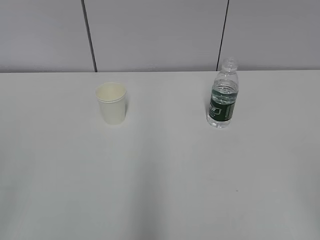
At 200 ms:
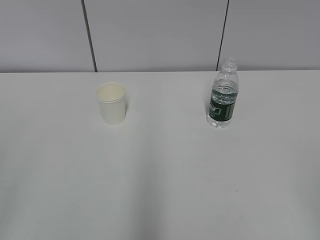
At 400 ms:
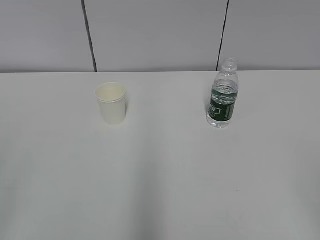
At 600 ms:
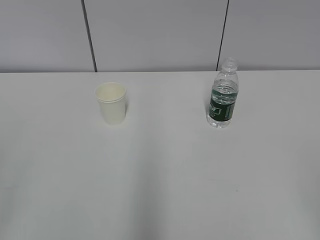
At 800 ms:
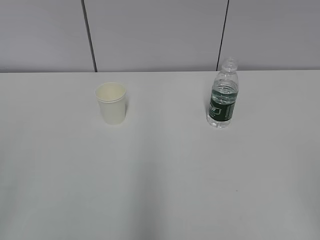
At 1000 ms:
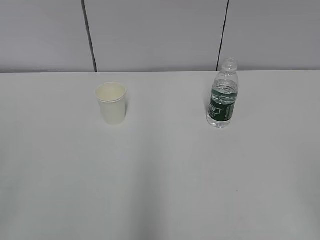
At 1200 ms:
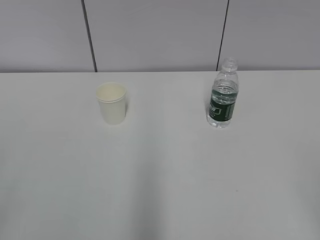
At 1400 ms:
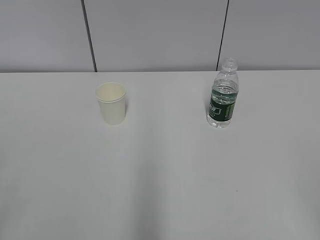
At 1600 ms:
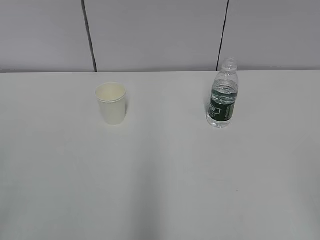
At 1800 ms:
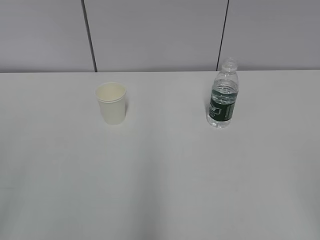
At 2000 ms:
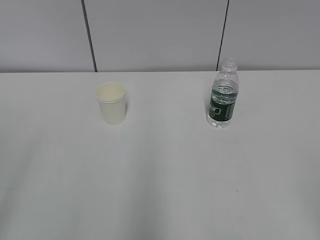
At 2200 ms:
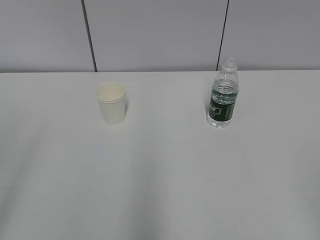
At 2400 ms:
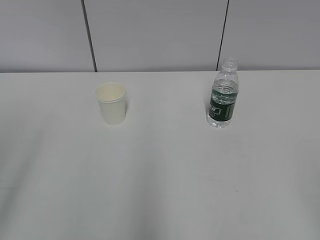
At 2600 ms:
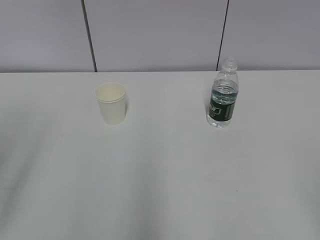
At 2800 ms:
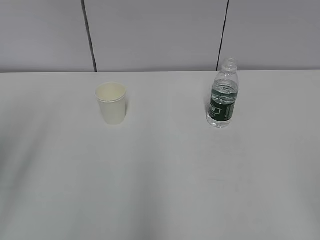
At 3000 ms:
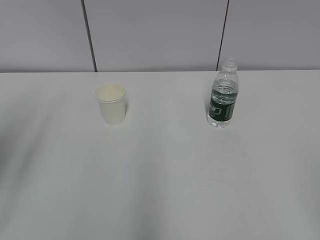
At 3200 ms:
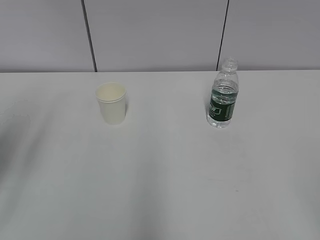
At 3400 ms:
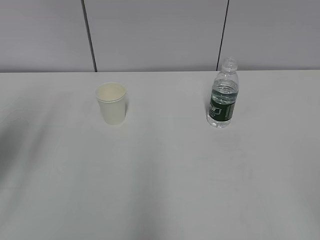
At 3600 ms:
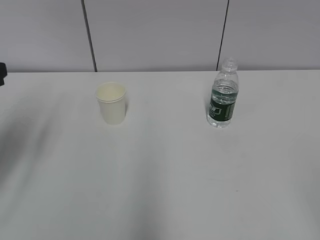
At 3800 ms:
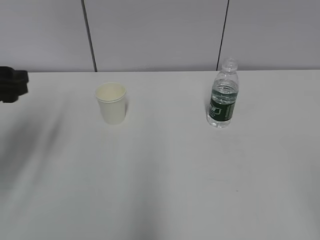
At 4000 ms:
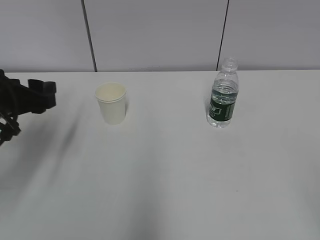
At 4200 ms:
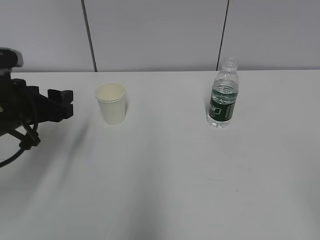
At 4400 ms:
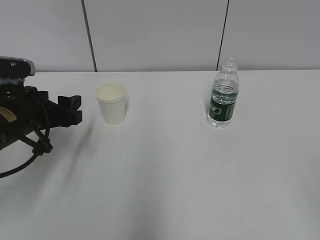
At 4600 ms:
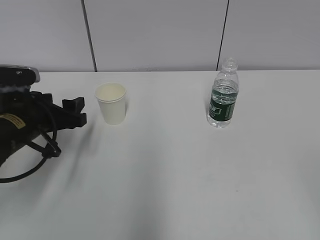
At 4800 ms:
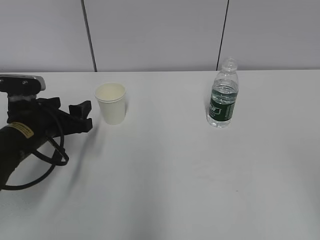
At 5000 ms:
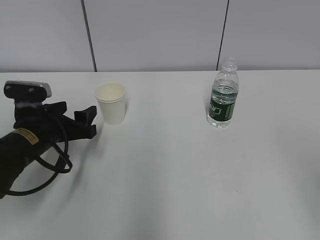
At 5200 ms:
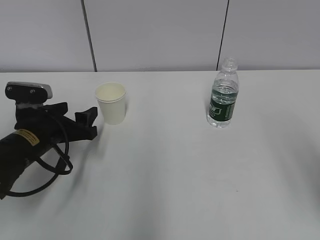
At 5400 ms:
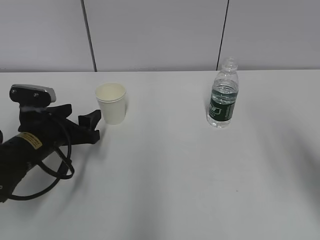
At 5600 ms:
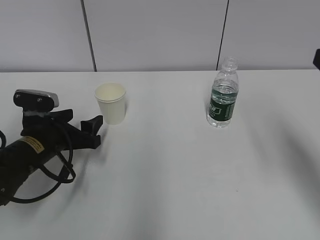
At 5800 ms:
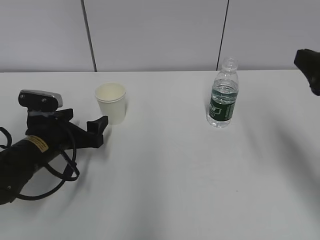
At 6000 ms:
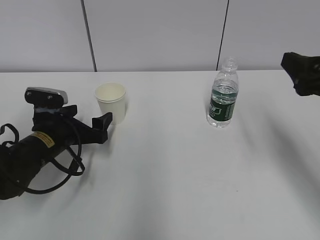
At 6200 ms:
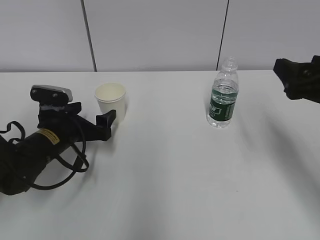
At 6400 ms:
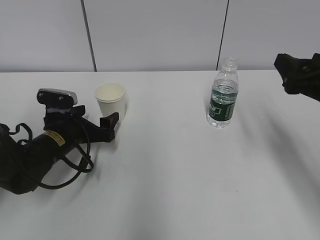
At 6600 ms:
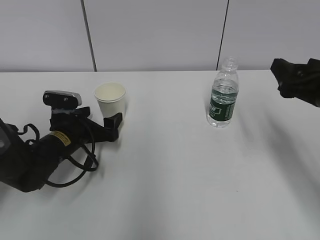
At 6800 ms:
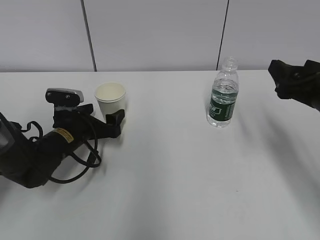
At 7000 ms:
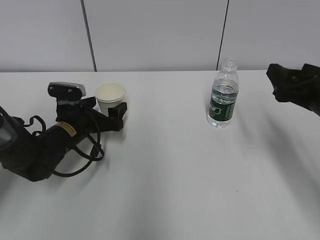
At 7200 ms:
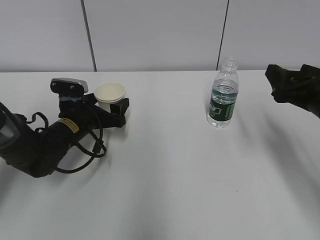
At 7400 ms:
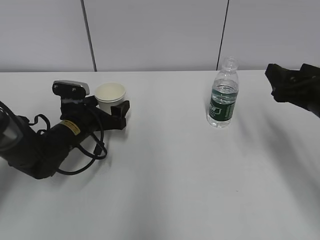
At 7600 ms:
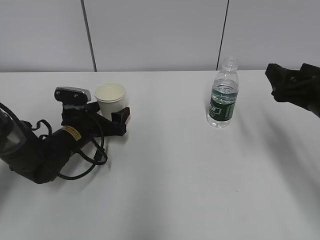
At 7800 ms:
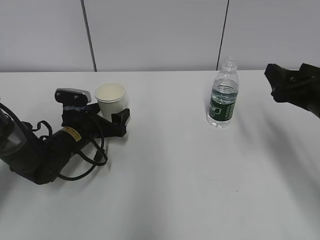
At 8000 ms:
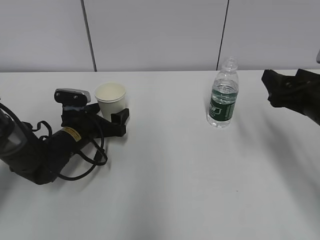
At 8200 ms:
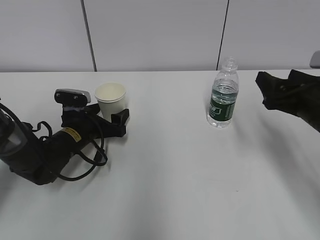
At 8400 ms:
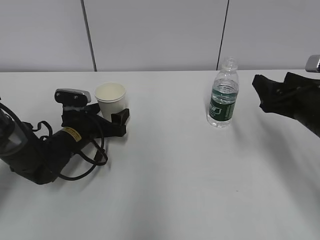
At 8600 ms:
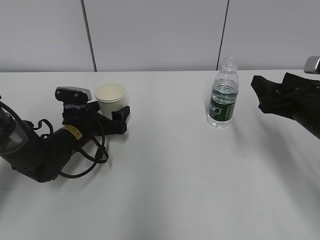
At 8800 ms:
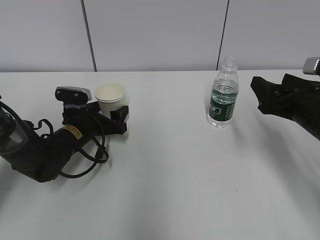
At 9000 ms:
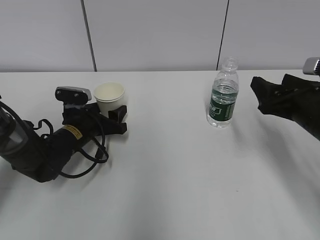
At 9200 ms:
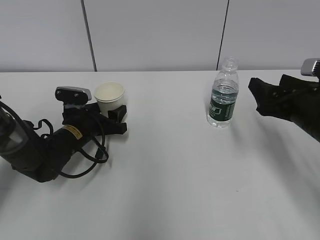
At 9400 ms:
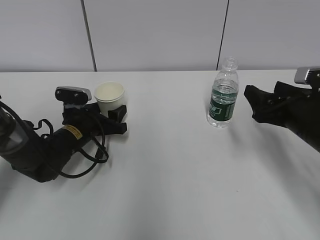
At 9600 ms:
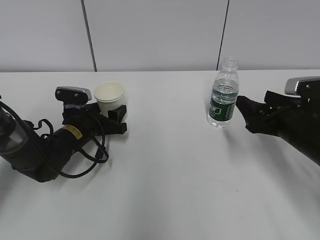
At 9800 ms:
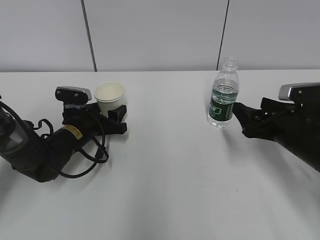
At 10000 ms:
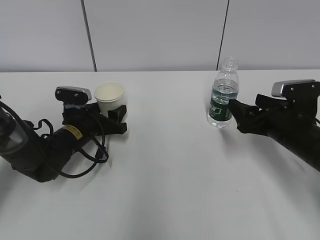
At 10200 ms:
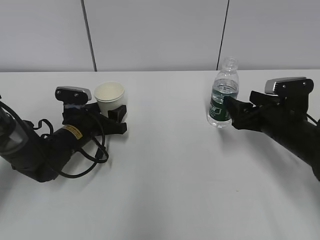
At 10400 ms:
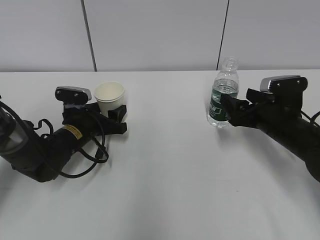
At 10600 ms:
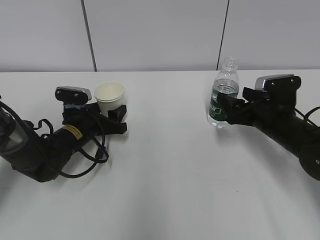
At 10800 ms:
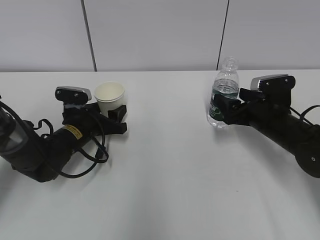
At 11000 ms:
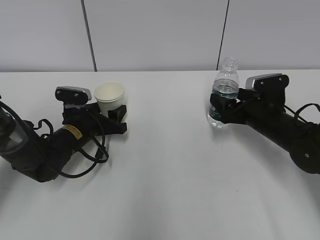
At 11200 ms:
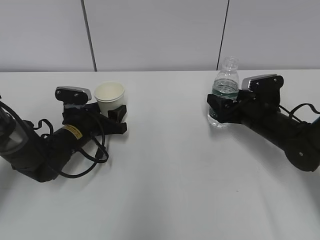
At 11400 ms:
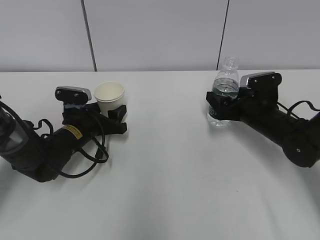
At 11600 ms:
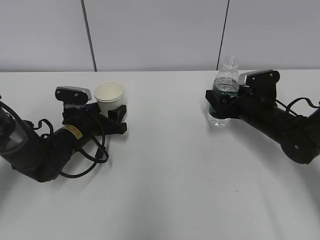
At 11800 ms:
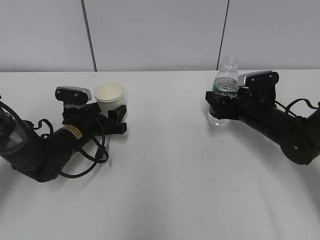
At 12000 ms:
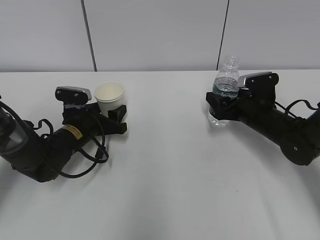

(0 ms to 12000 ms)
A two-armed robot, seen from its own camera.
Step, 0 ms - 10000 ms: Grab the paper cup with the left hand.
Step, 10200 ms - 10400 ms: Grab the water bottle with the right hand.
1600 ms - 3000 ms: The left gripper goes roughly 15 cm forward.
3000 ms - 4400 ms: The left gripper travels downward, forward and to the right by approximately 20 cm.
4400 ms - 6000 ms: The left gripper goes some 10 cm downward, and opens up; the right gripper travels forward by roughly 25 cm.
6000 ms - 7600 ms: The right gripper moves downward, some 5 cm; the left gripper shifts roughly 5 cm forward.
7600 ms - 9000 ms: The left gripper closes.
9000 ms - 10400 ms: The right gripper travels downward and forward by roughly 10 cm.
10400 ms - 12000 ms: The right gripper shifts roughly 5 cm forward.

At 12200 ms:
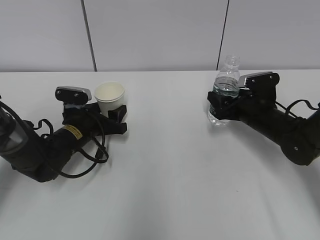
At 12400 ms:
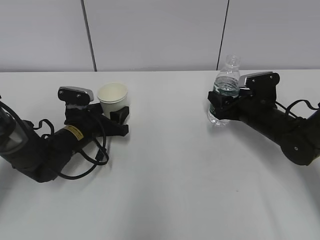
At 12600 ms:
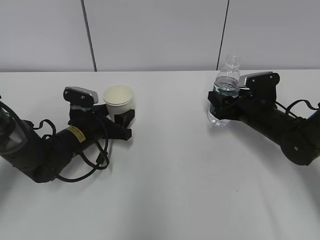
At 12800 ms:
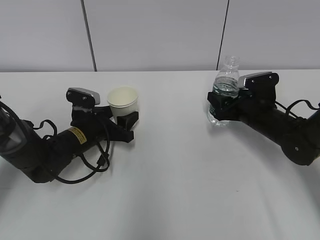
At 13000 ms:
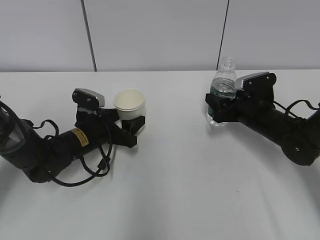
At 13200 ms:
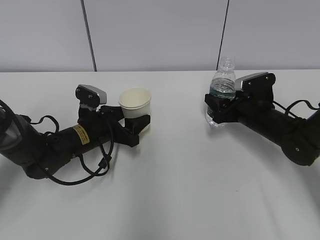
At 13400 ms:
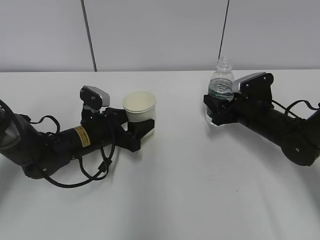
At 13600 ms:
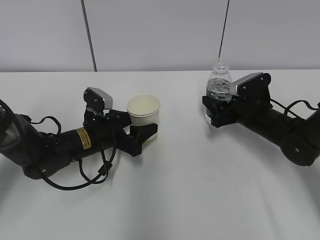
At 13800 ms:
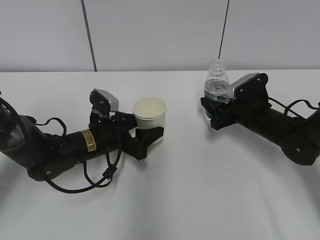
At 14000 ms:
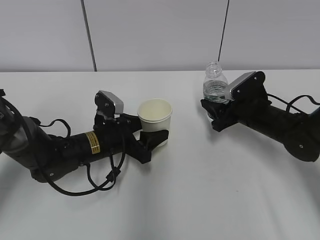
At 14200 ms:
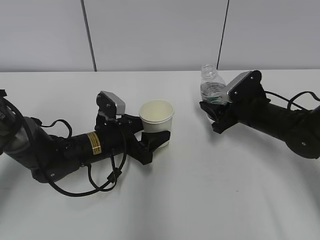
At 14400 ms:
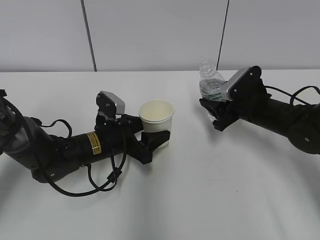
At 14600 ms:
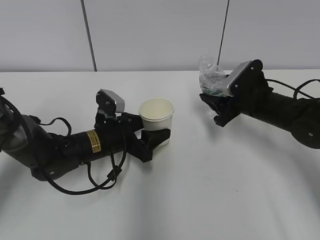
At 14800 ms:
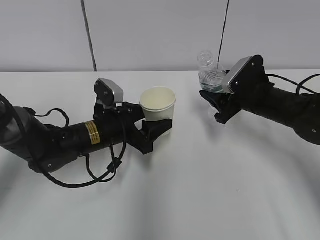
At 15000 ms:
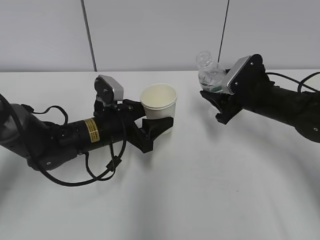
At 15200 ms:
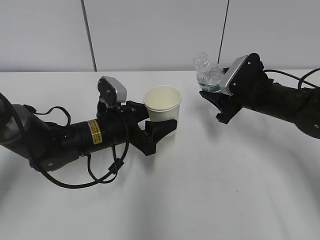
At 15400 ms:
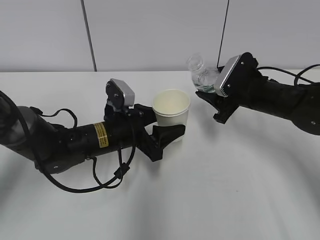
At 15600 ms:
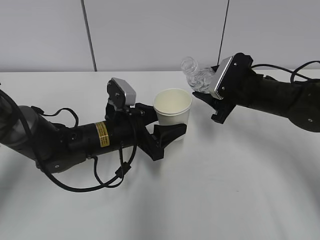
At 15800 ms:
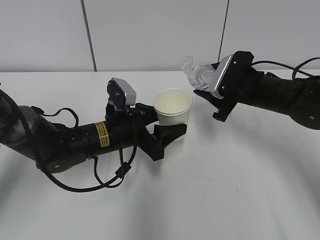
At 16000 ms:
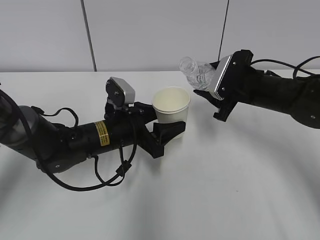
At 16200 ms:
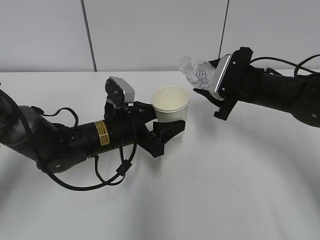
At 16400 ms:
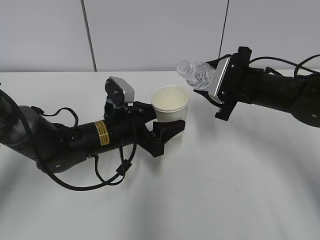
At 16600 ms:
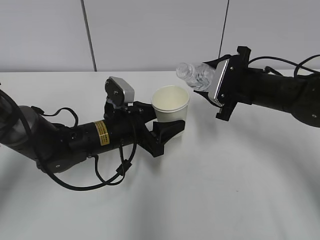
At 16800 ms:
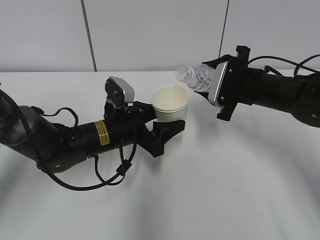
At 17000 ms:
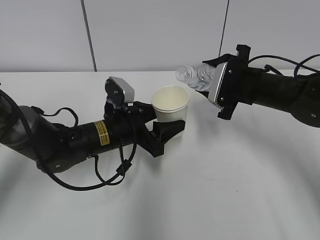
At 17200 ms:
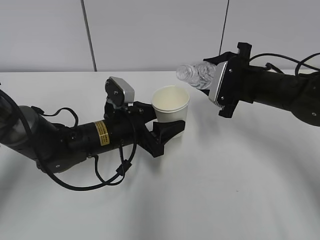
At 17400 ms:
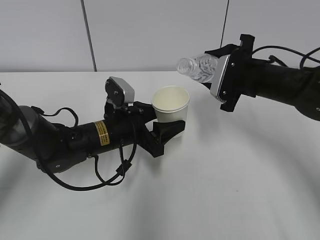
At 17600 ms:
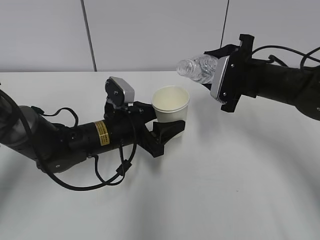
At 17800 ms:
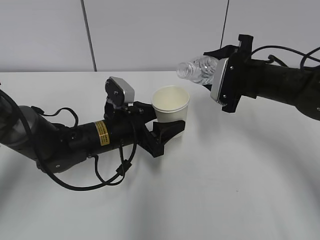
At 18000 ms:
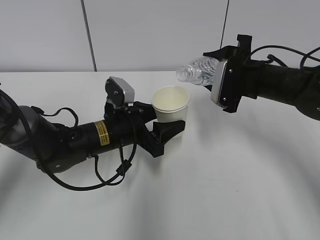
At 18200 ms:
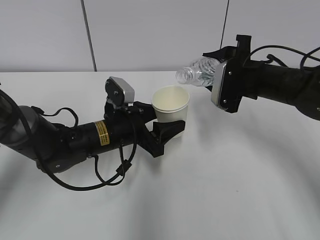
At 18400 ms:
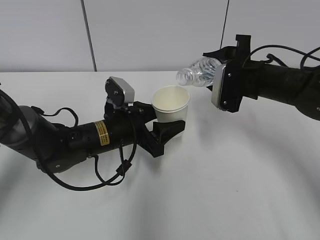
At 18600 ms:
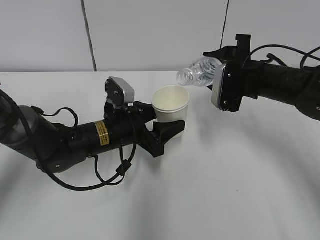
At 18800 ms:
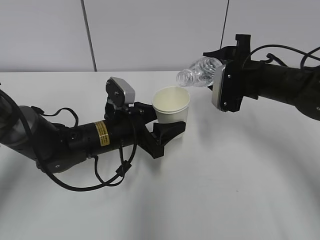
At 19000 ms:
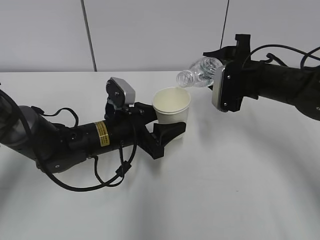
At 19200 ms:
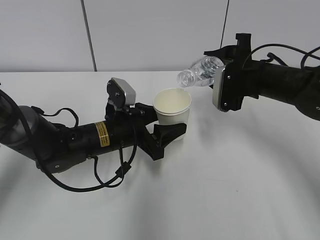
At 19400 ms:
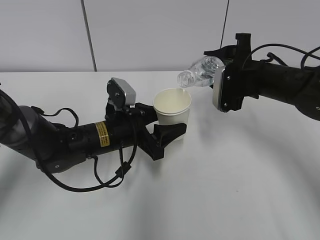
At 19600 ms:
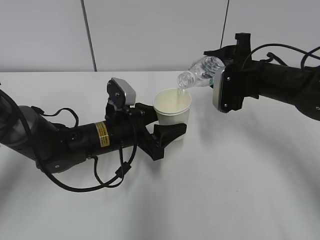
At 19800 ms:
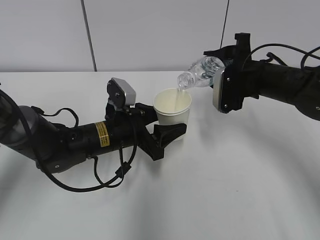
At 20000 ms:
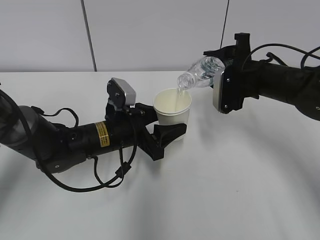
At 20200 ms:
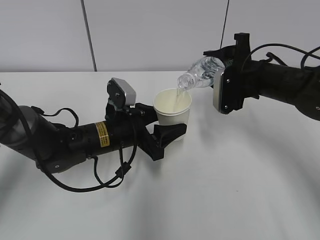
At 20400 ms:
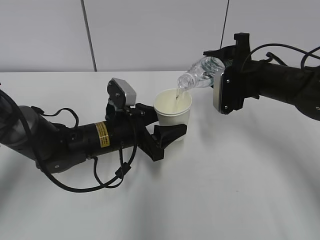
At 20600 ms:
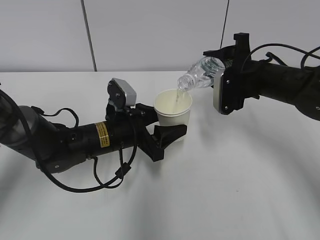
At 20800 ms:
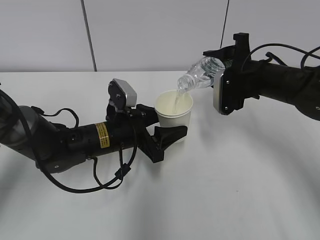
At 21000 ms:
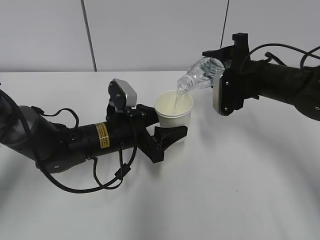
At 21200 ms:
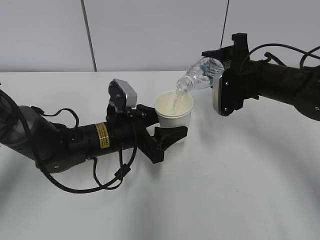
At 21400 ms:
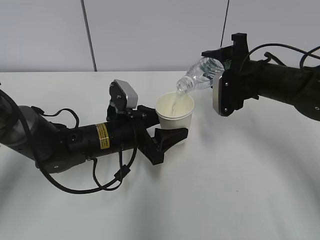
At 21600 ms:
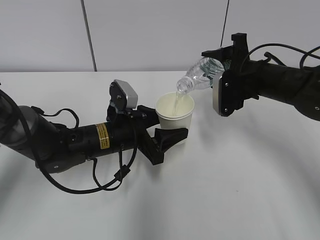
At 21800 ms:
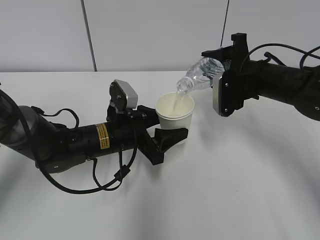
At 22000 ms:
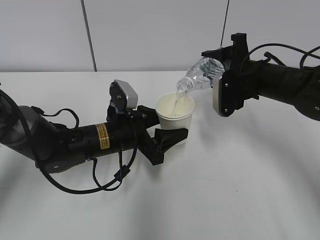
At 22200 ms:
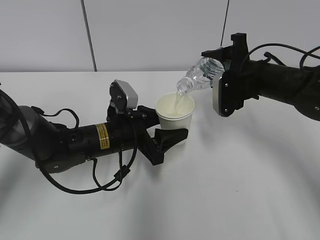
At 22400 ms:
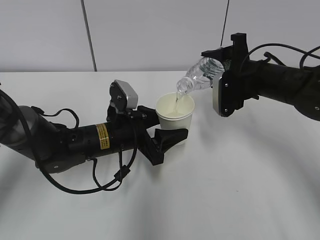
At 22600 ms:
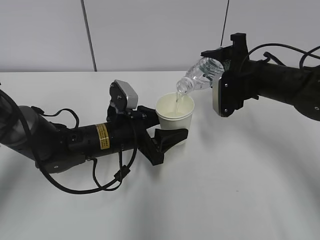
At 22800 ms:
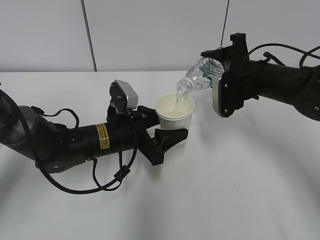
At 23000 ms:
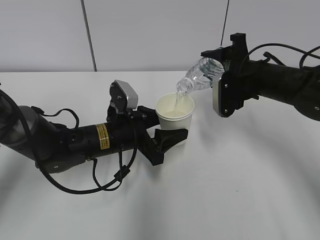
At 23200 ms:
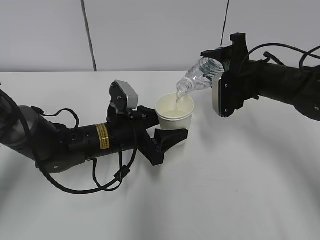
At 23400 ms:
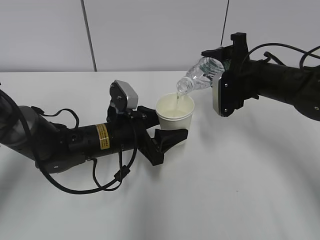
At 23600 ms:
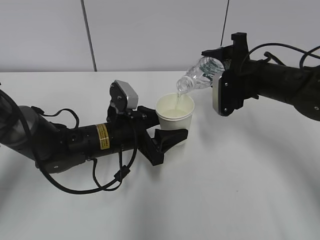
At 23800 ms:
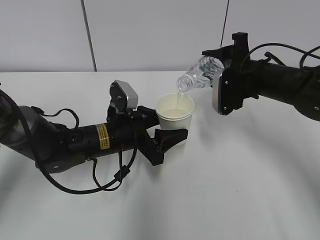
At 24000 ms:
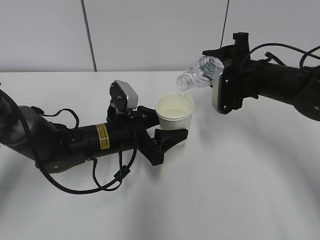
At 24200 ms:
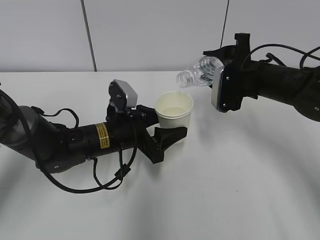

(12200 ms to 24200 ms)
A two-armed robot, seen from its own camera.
Step, 12200 ms - 16200 ms: Lift the paper cup with the left hand.
Step, 16400 ms - 19800 ms: Pour water with the right hand.
Step, 20000 ms - 21400 ms: Collect water with the right hand.
12200 ms - 13800 ms: The left gripper moves roughly 5 cm.
13800 ms - 15200 ms: The right gripper shifts approximately 5 cm upward.
16600 ms - 18200 ms: The grippers make only small movements.
18200 ms - 19800 ms: The grippers move only a little.
19800 ms - 21200 ms: Neither gripper changes place.
21200 ms - 22600 ms: The two grippers keep their place.
22600 ms - 24200 ms: The grippers move only a little.
